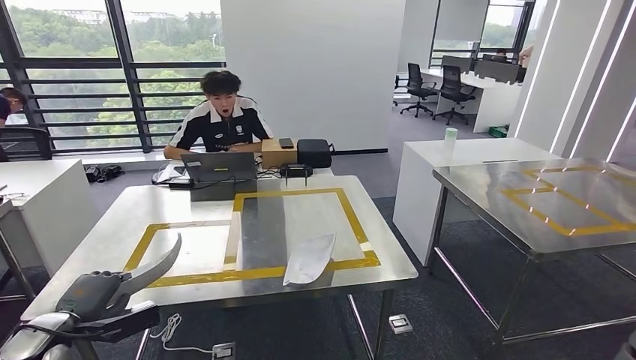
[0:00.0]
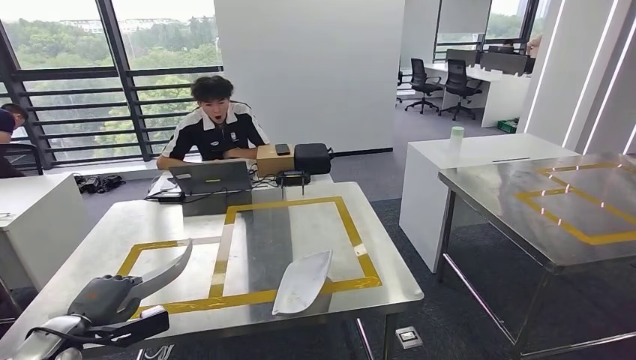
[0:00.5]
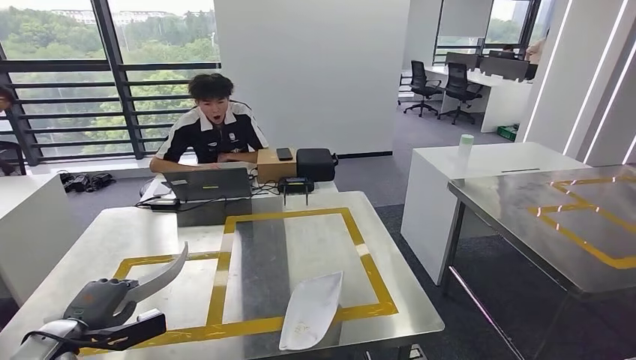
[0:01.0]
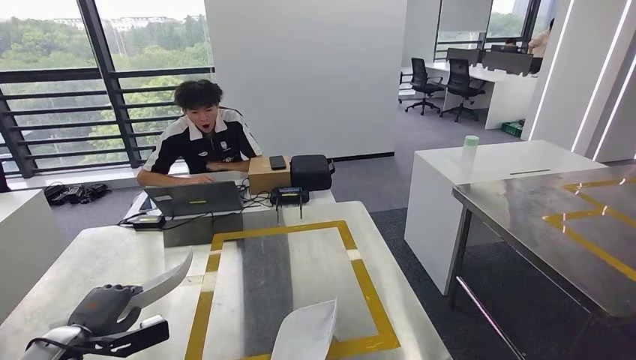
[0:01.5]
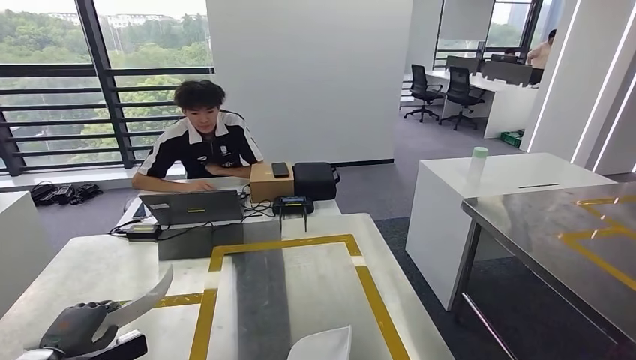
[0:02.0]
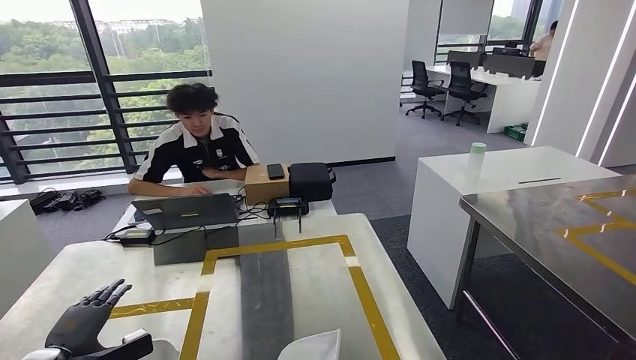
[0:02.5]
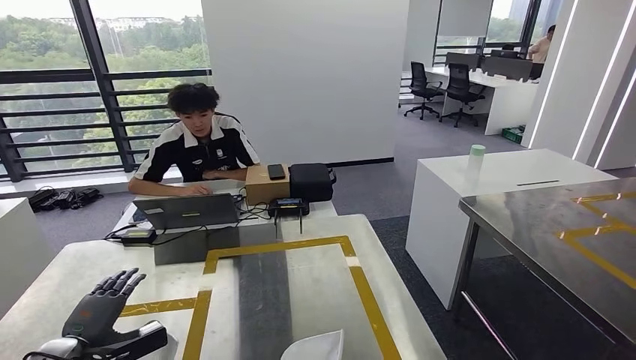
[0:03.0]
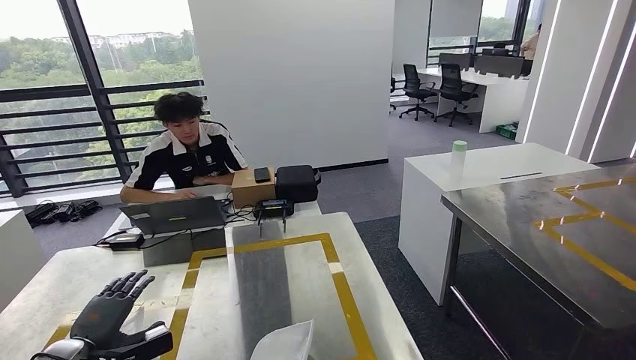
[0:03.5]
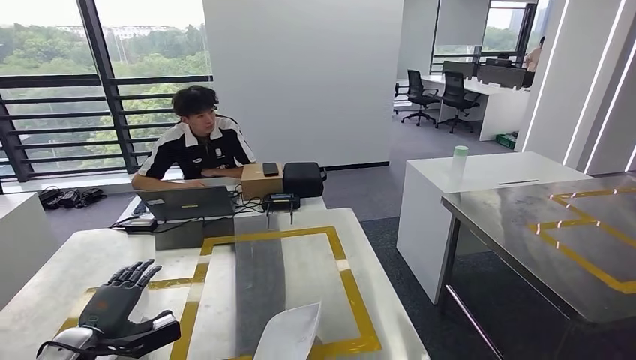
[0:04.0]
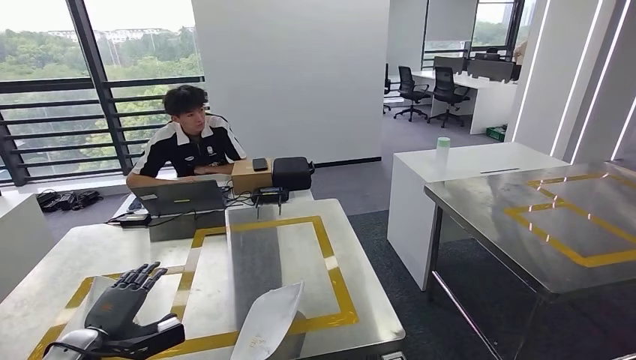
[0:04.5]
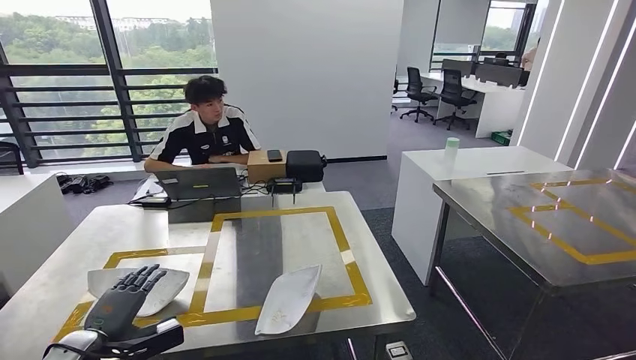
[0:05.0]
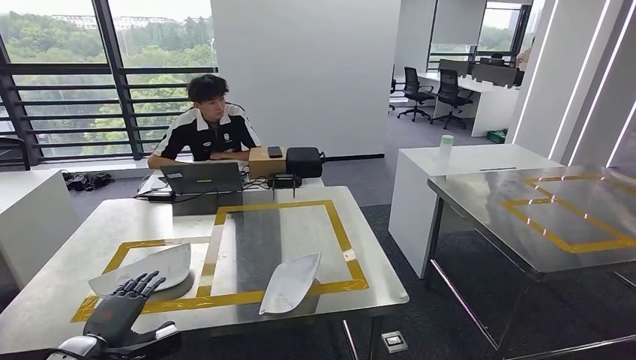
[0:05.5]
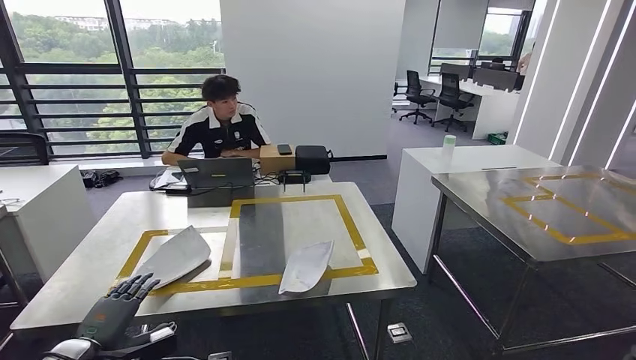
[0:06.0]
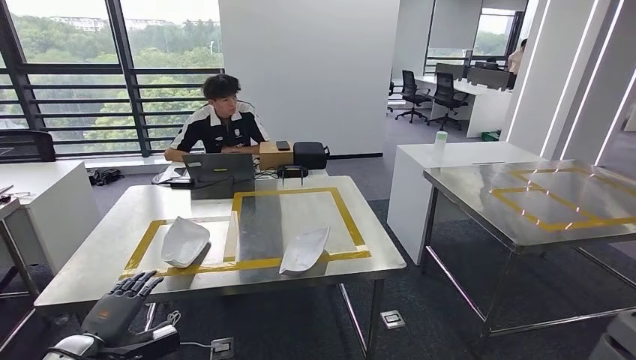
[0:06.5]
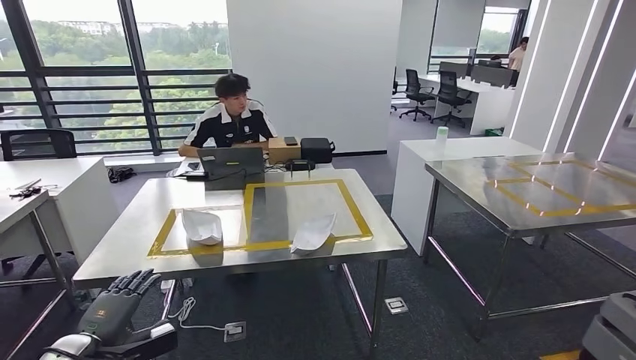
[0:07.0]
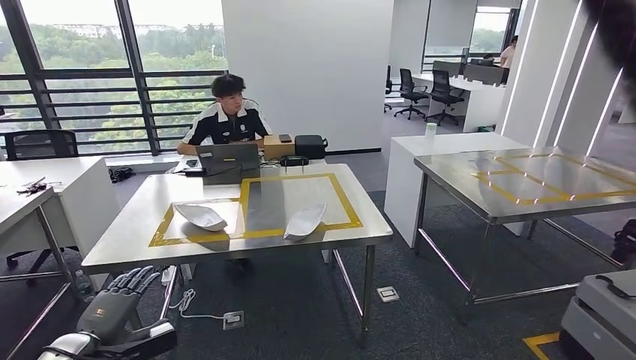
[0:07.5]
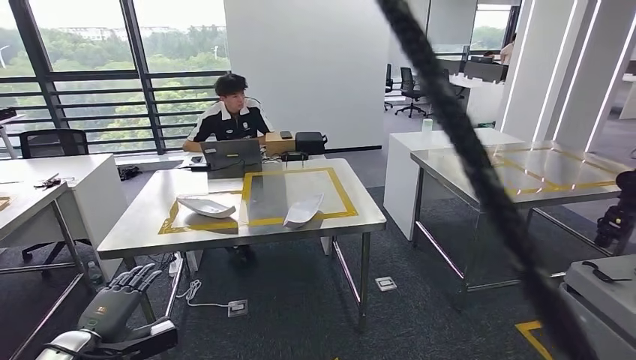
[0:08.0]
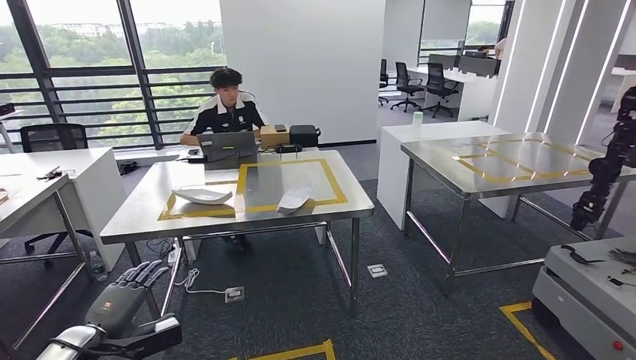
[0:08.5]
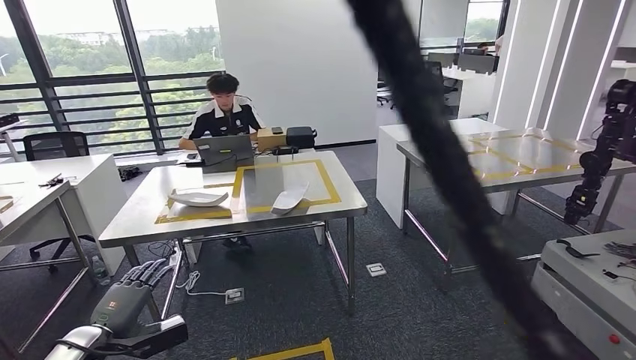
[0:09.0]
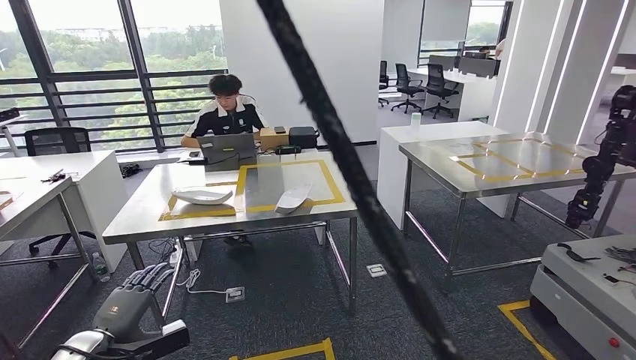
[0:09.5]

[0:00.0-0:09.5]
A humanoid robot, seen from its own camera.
Step, 0:03.0 to 0:04.5: Insert the small parts into the corresponding holes on the workbench.
Step, 0:07.0 to 0:09.5: Move to the initial position at the workbench.
